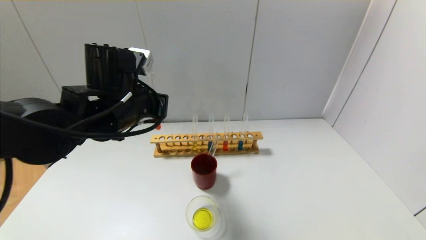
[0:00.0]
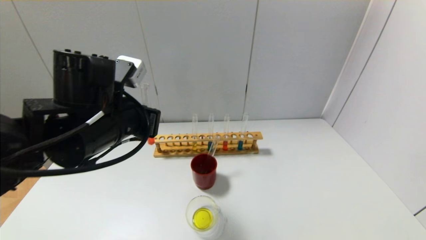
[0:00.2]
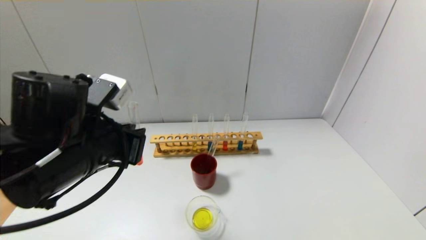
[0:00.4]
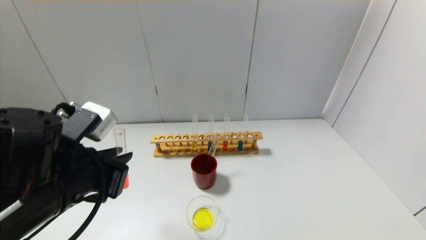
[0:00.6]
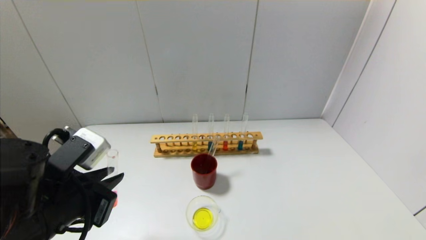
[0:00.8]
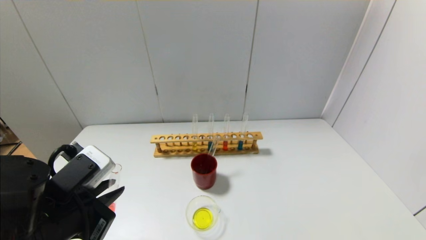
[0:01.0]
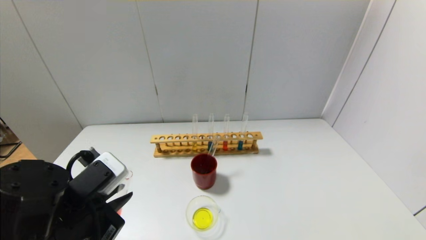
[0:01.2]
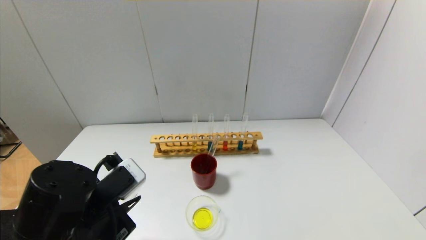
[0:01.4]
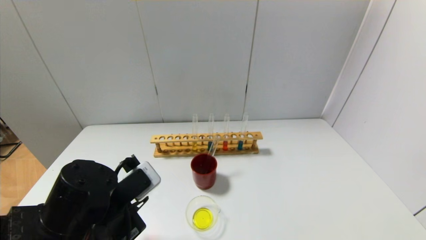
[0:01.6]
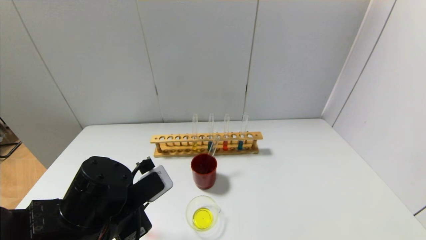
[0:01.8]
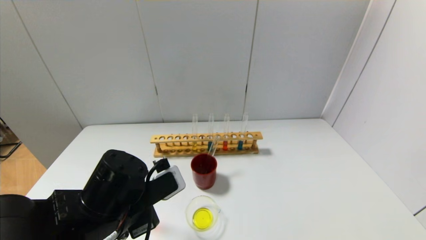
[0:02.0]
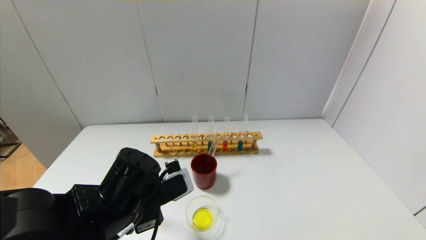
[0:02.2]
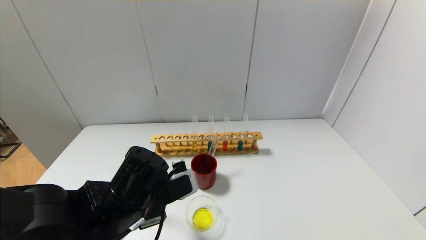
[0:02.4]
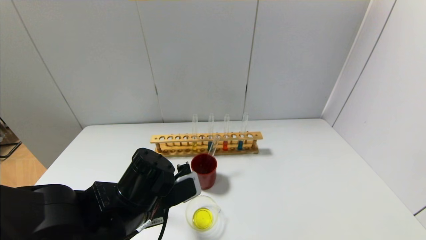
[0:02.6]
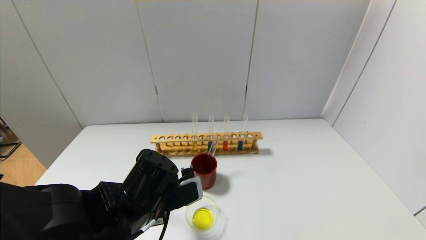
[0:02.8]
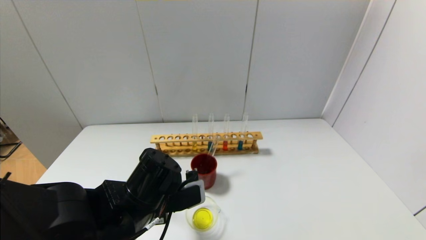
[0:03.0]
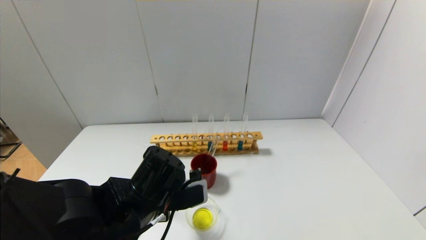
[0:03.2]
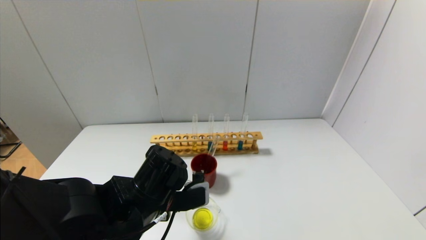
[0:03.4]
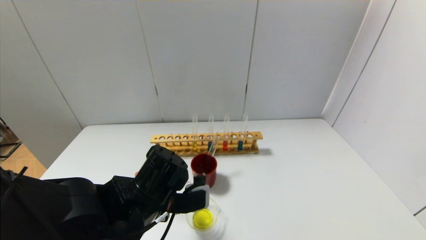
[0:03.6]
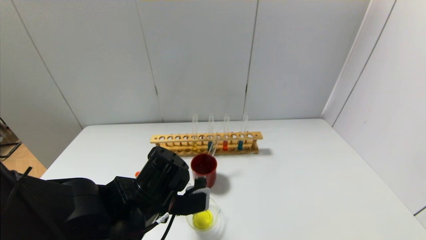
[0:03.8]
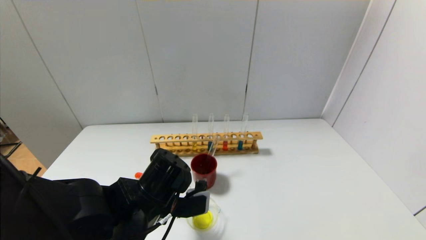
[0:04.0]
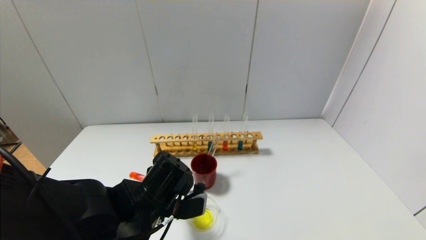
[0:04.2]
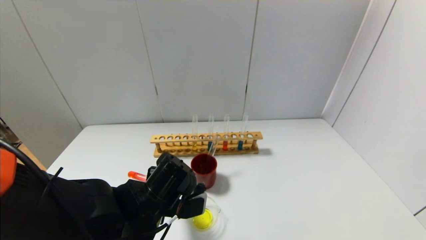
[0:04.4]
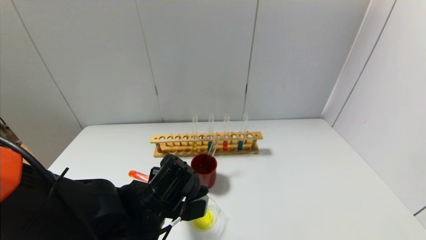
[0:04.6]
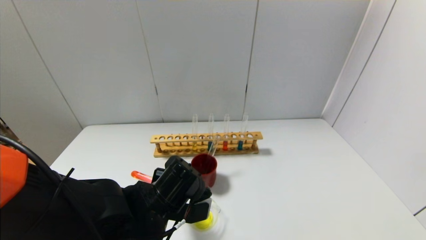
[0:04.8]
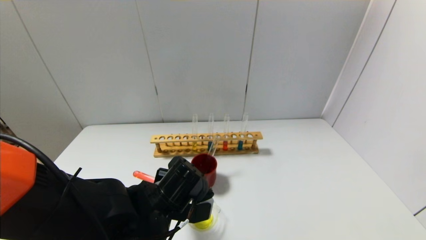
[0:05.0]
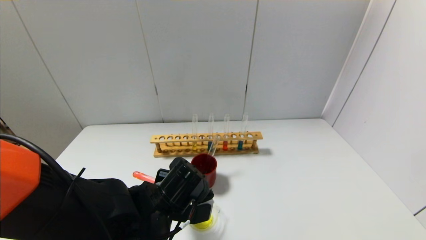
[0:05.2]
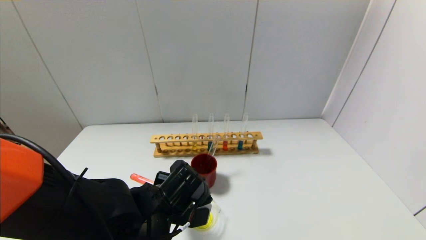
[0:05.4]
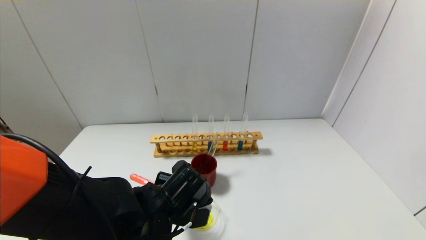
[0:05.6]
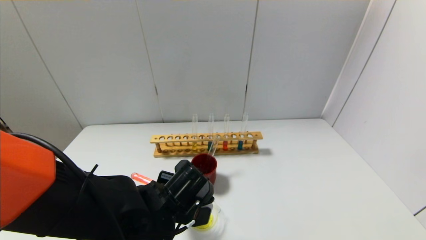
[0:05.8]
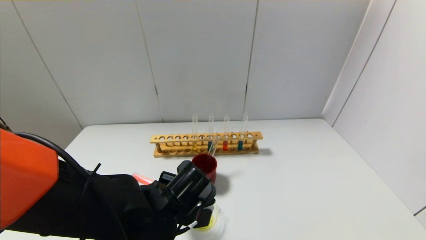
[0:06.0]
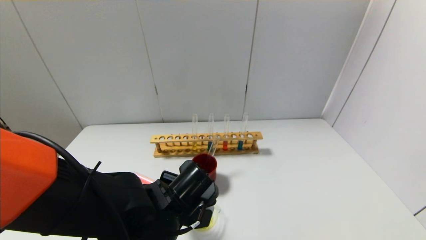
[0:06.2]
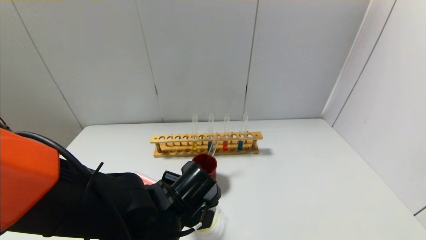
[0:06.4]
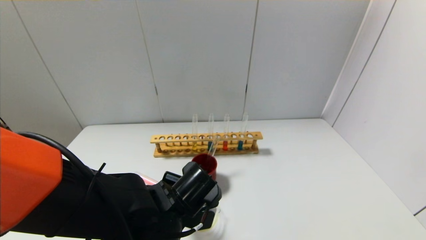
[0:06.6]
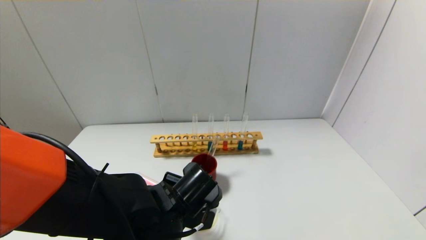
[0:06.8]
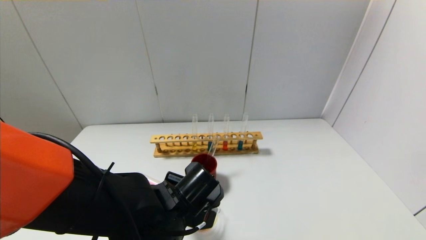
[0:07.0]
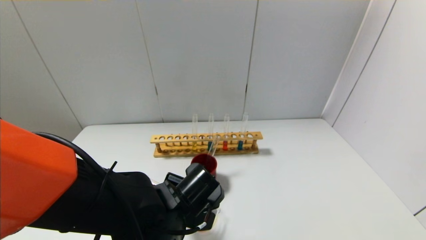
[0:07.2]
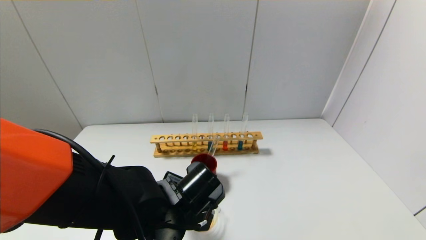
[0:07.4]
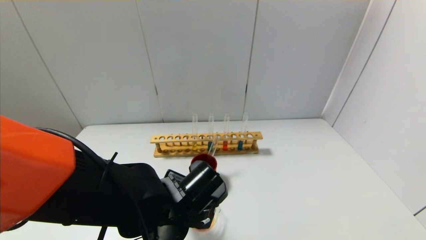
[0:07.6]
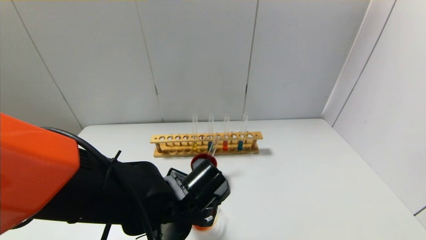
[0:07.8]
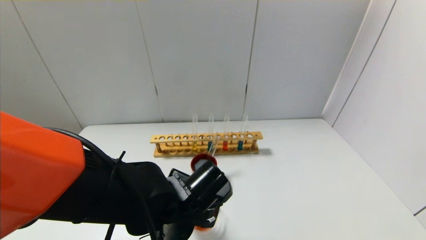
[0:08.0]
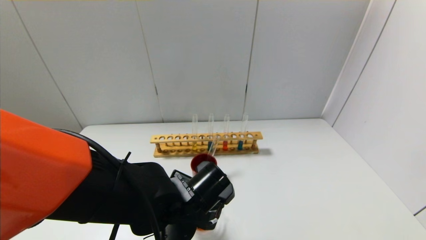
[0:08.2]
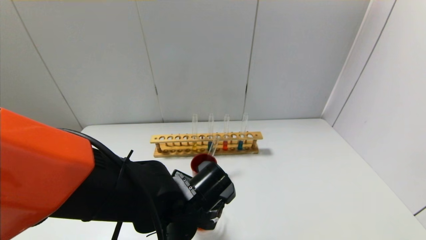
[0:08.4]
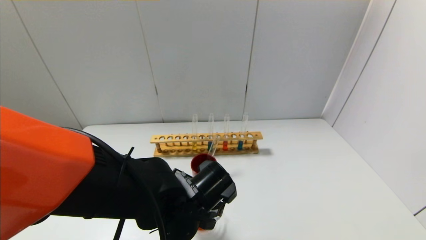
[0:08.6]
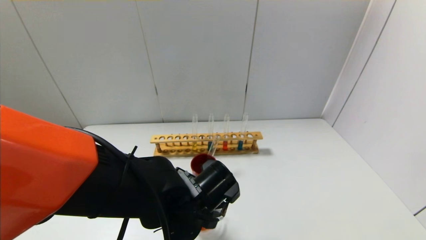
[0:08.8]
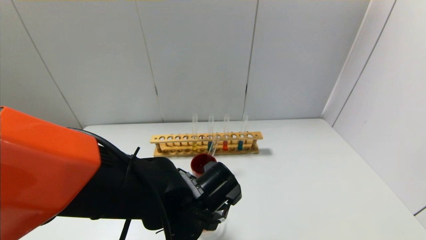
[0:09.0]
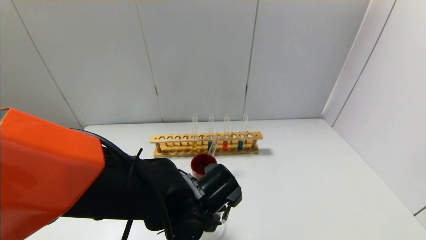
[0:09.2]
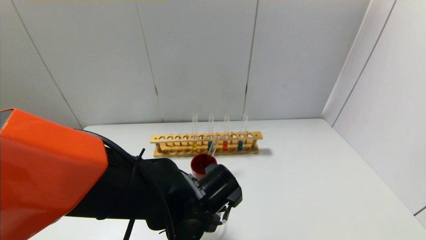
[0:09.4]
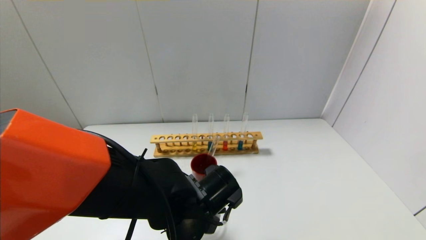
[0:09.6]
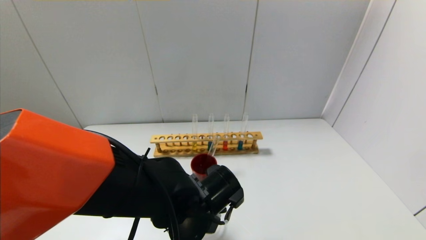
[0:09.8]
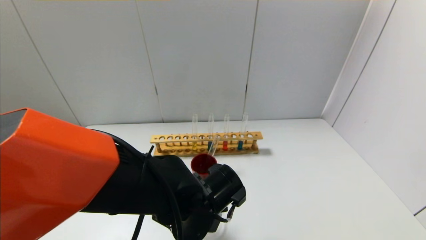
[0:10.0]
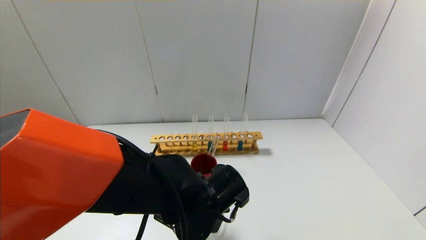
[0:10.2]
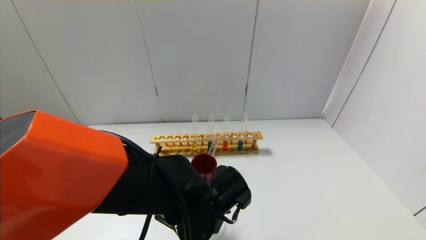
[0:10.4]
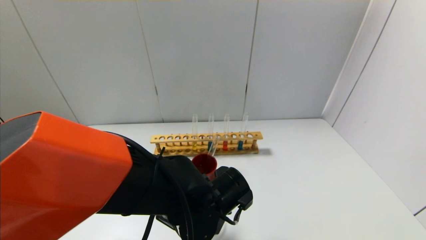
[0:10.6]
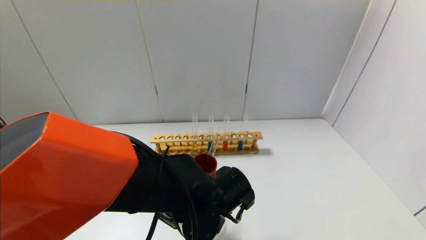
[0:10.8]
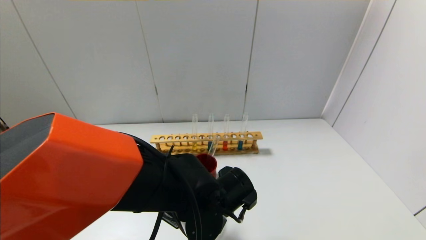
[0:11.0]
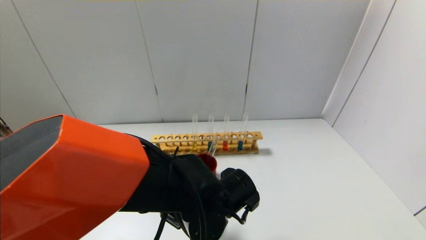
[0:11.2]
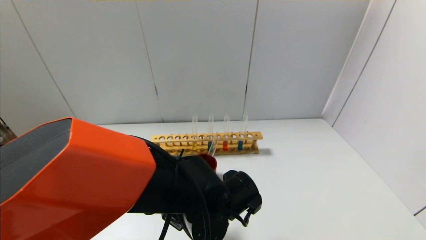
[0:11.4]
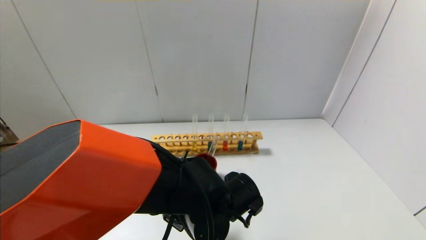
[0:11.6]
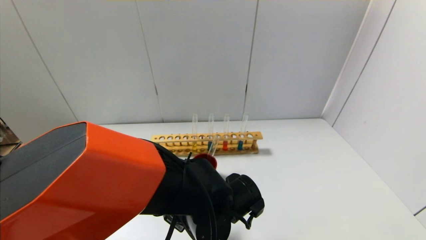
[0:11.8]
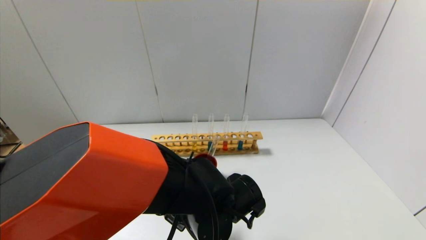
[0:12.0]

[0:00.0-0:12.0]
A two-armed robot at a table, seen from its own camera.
0:00.0 to 0:01.6: The left gripper shifts some 15 cm backward and downward.
0:01.6 to 0:03.0: The left gripper heads to the right, covering roughly 5 cm.
0:03.0 to 0:04.4: The grippers stay close to where they were, moving slightly.
0:04.4 to 0:07.6: There are only small adjustments of the grippers.
0:07.6 to 0:12.0: The grippers make only small movements.

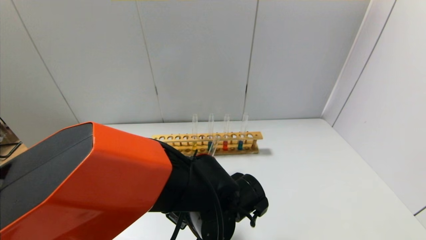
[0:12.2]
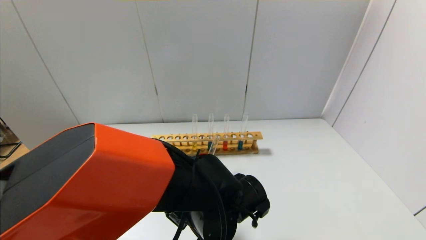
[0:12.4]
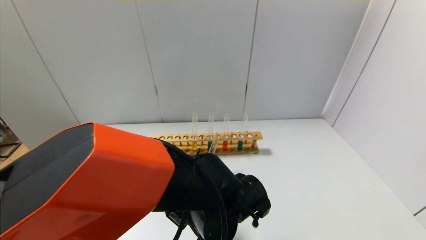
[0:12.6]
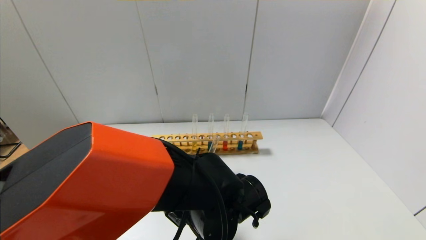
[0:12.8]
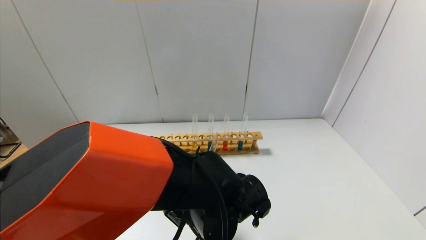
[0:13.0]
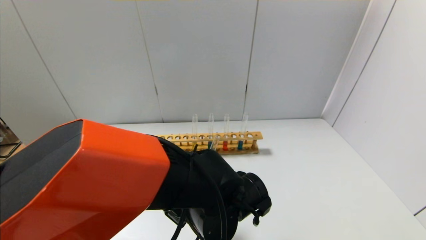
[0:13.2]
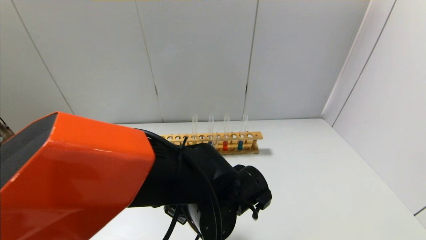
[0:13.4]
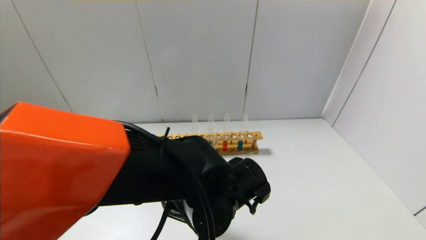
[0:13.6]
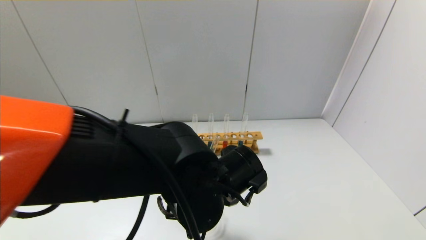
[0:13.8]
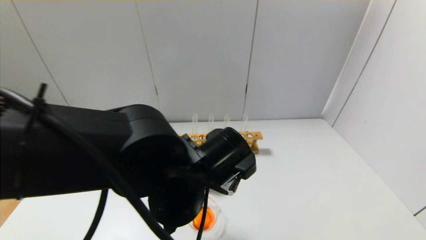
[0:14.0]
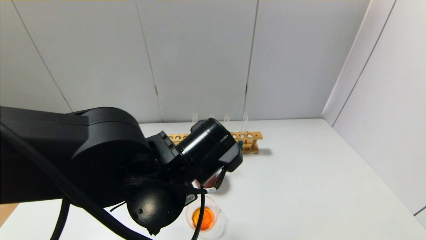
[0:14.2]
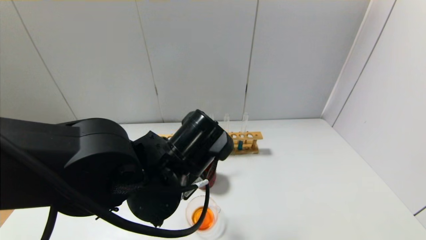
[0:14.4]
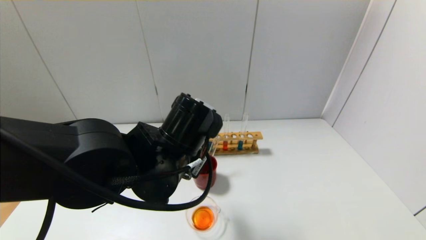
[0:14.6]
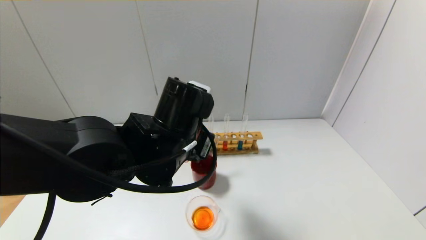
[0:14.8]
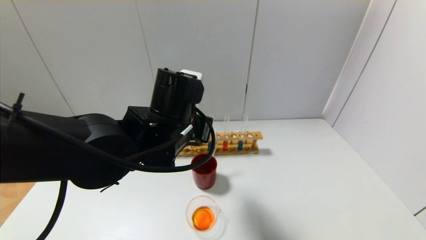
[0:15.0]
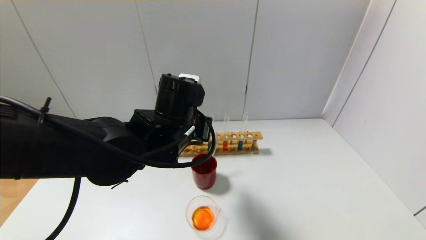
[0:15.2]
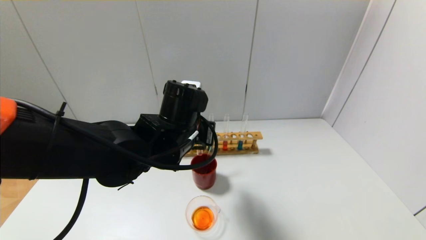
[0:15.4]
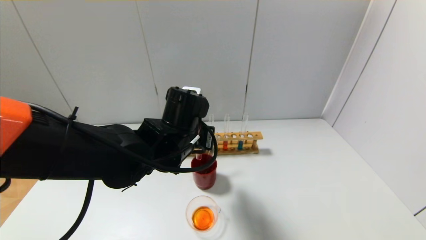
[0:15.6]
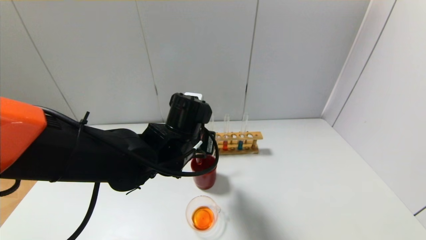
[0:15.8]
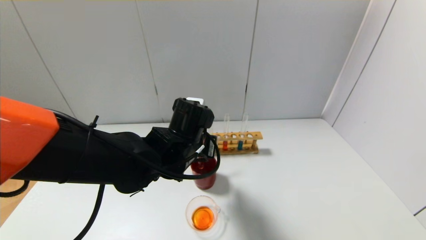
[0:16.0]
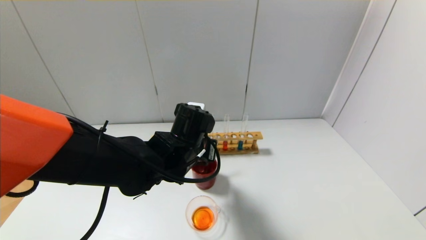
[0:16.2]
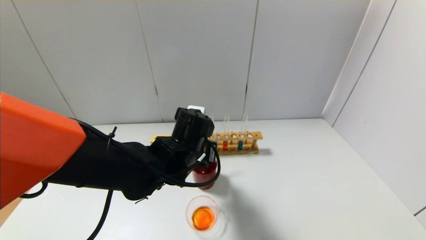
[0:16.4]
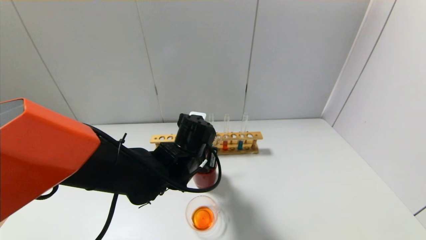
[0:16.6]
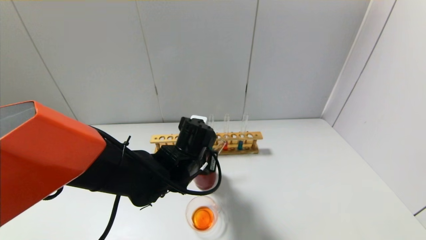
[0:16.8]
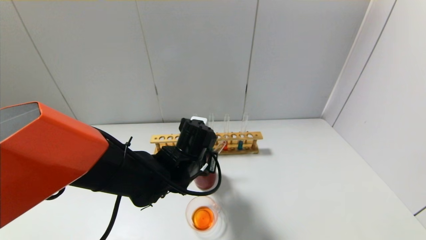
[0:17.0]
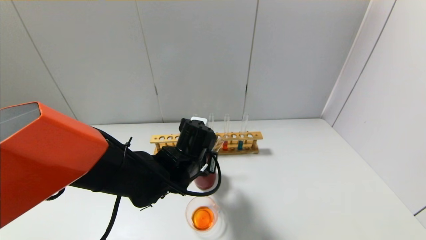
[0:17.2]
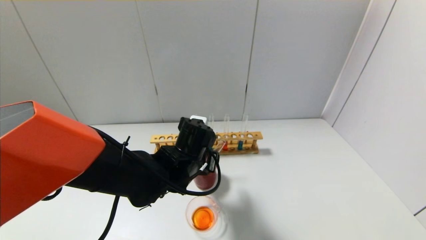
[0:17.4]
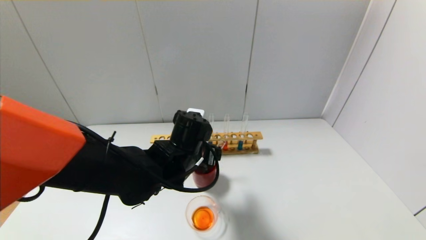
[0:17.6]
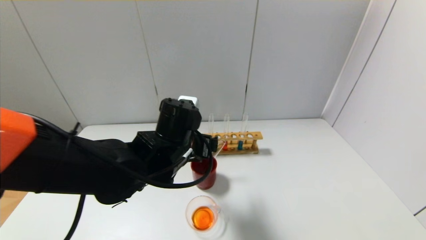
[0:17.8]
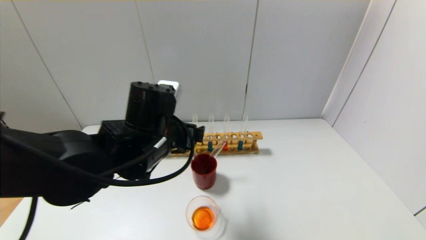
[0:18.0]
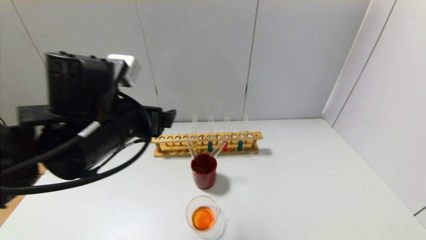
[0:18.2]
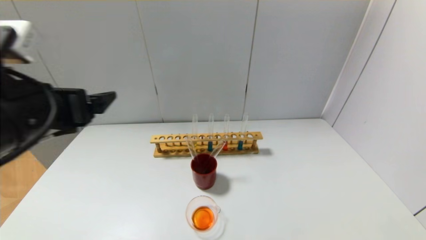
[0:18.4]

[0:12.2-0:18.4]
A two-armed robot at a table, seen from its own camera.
Step, 0:13.0 to 0:17.4: Place the test tube into the brown cup with the left gripper.
0:12.2 to 0:13.8: The left gripper moves upward, roughly 5 cm.
0:13.8 to 0:15.4: The left gripper heads forward, covering approximately 10 cm.
0:15.4 to 0:16.8: The left gripper moves downward, about 10 cm.
0:16.8 to 0:18.4: The left gripper heads to the left, upward and backward, covering roughly 30 cm, and opens up.
